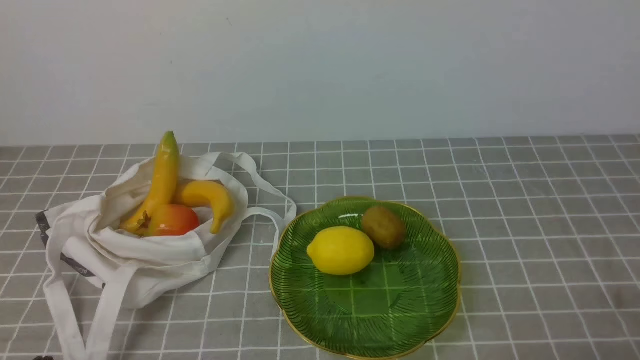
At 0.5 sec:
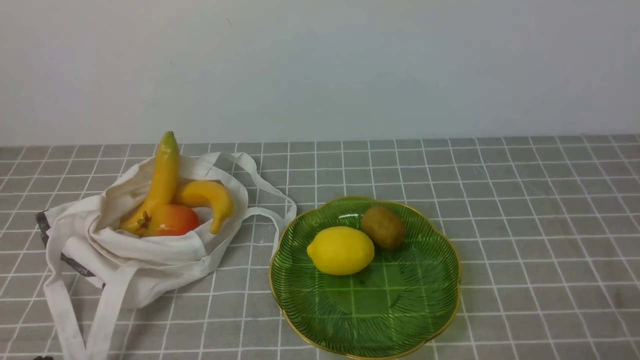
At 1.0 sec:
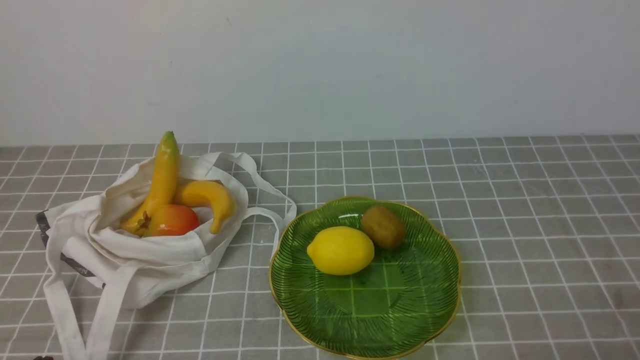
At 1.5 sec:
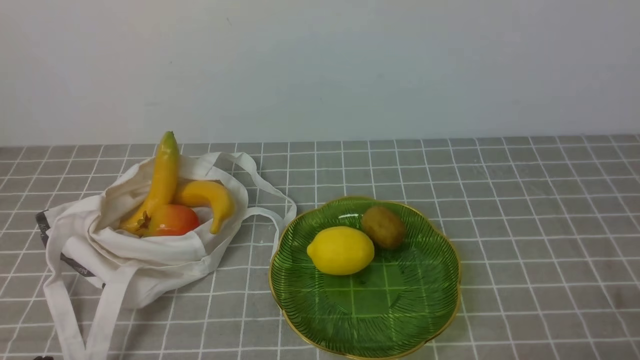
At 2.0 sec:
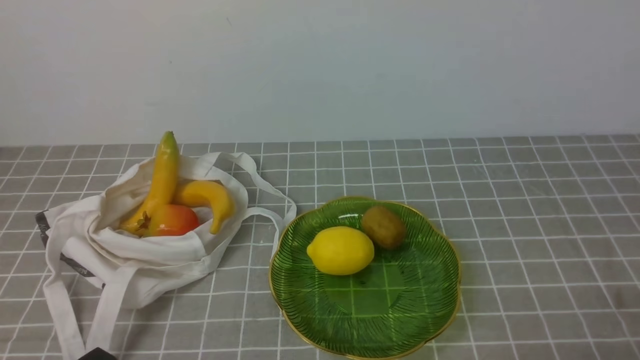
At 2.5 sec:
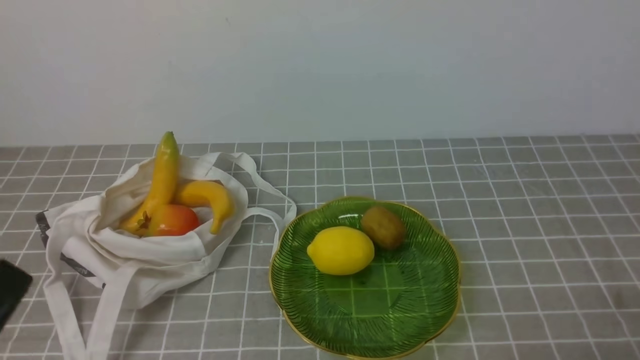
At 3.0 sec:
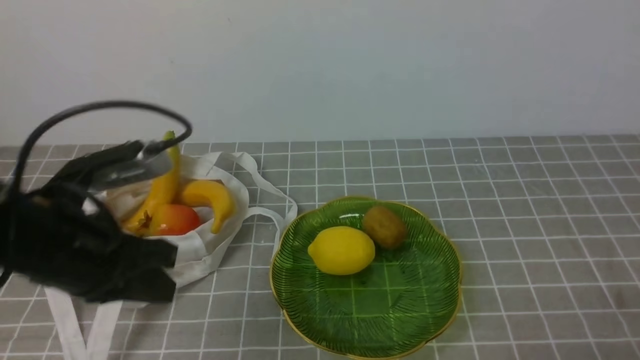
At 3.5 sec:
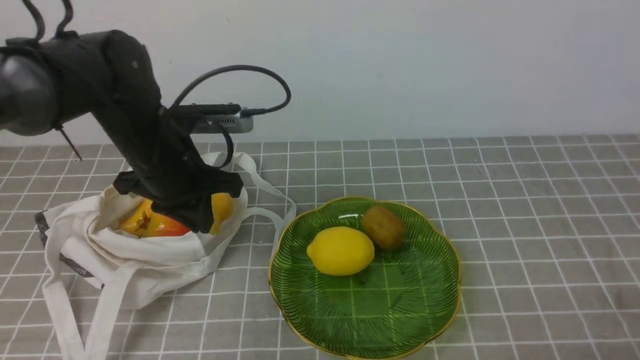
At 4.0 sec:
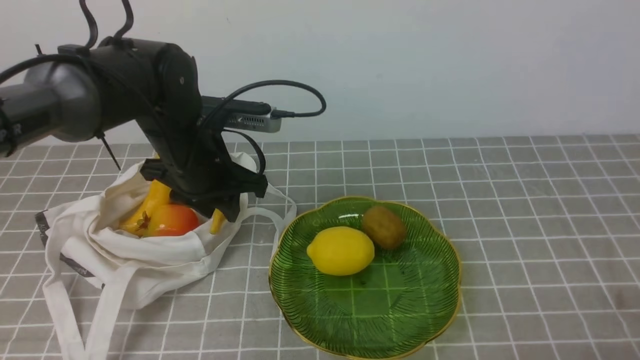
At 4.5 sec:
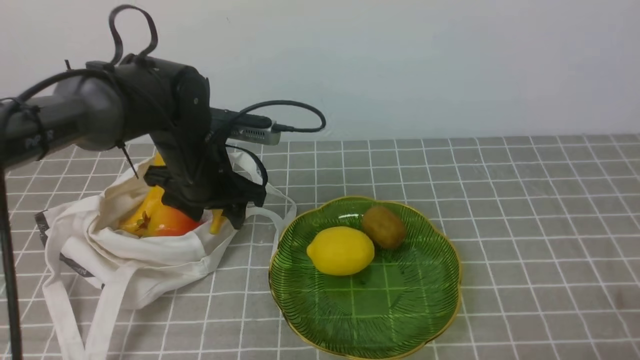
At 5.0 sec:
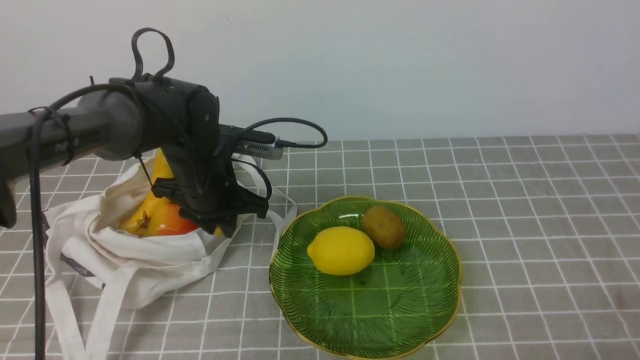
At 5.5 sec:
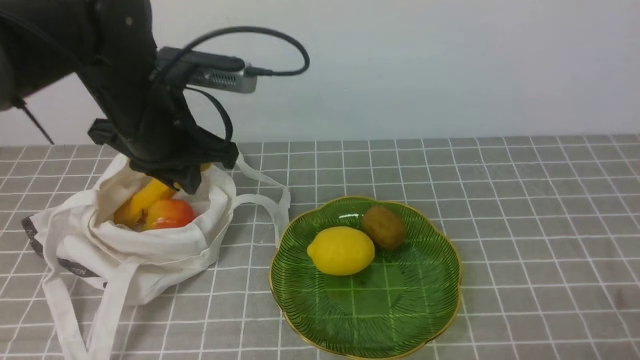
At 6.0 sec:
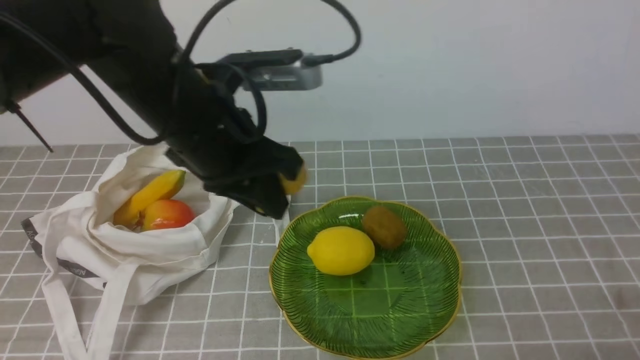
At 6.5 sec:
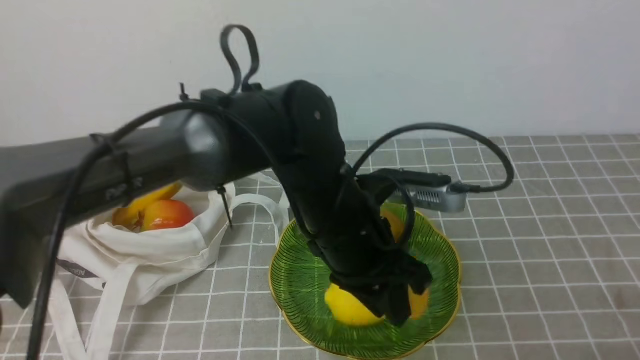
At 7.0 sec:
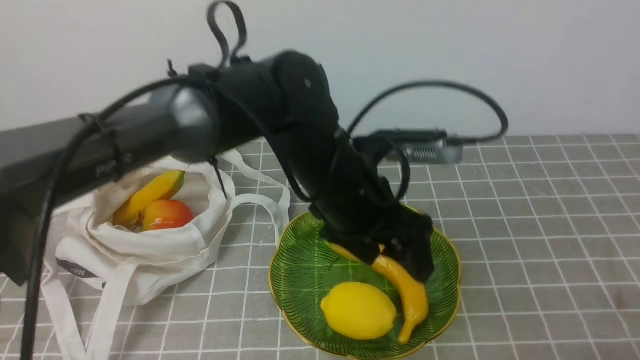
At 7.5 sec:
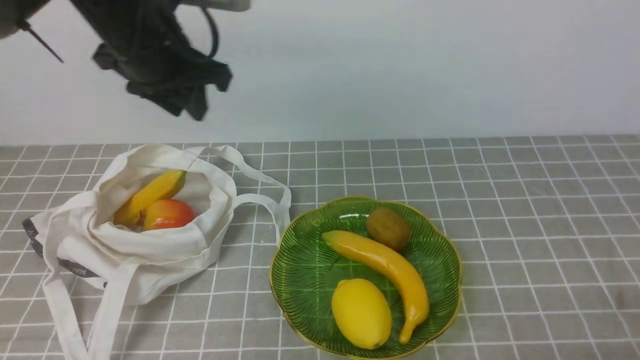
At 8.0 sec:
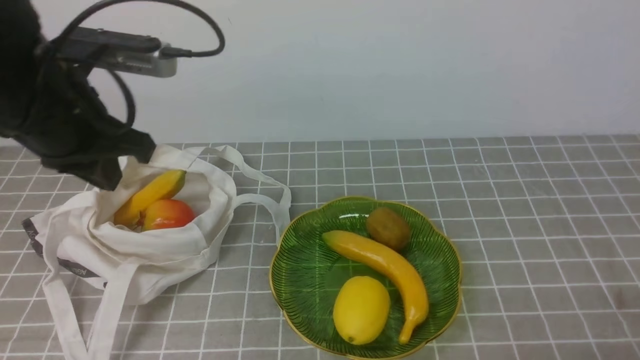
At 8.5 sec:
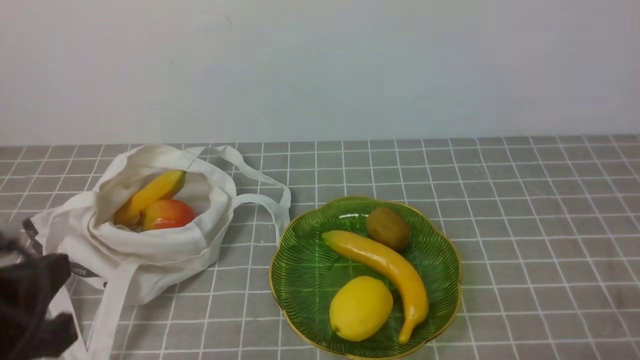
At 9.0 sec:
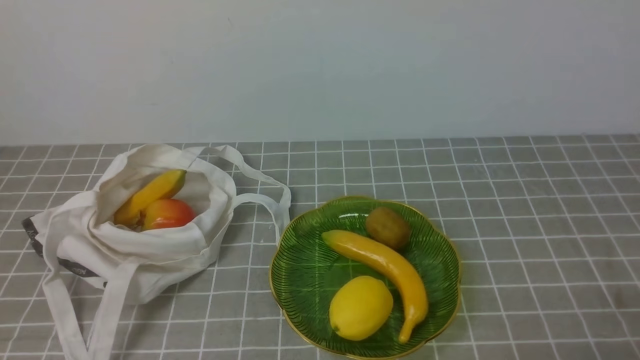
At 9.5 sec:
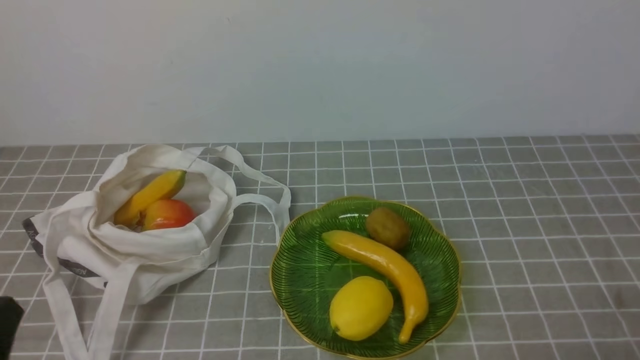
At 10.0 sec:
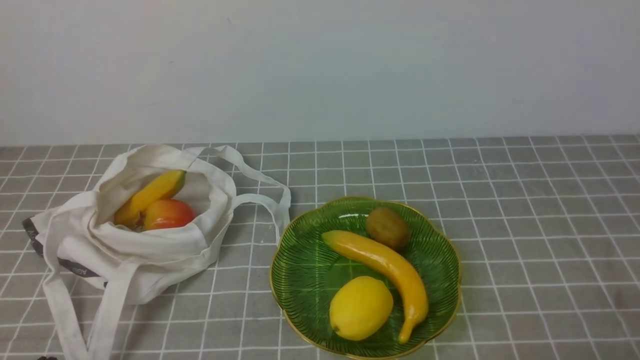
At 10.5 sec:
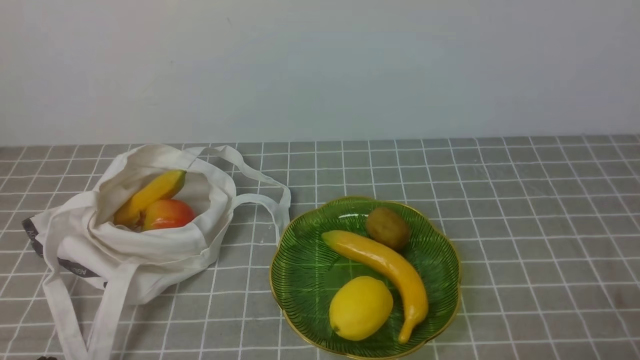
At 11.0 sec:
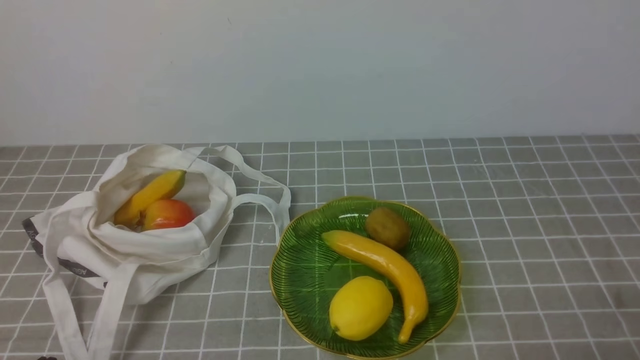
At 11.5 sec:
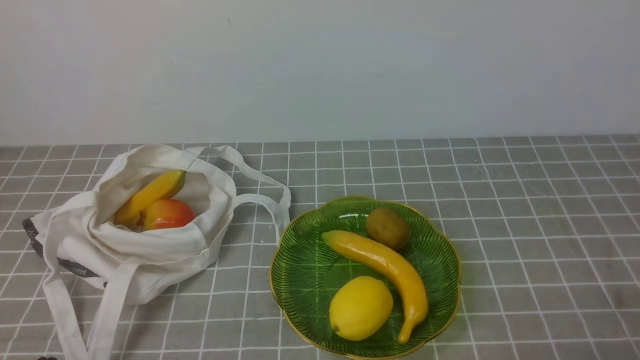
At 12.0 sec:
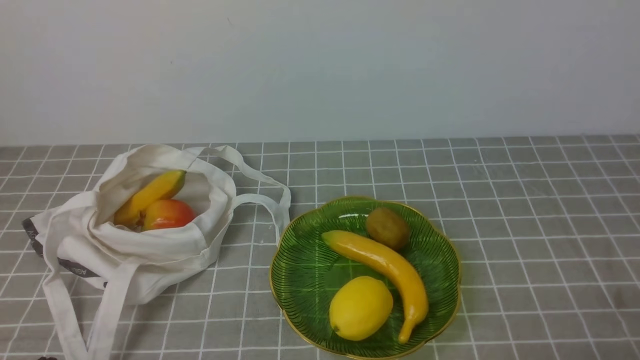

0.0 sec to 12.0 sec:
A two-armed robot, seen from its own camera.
Step, 0.0 sec to 5.0 sec: use the left arm to grab a banana from the bag.
Step, 5.5 sec to 6.5 sec: use the left arm to put the banana into the empty plate on the right.
2.0 sec to 4.0 sec: The left gripper shifts some 30 cm forward, and opens its fingers.
4.0 sec to 6.0 sec: The left gripper travels upward and backward by roughly 10 cm, and opens, then closes once more.
6.0 sec to 8.0 sec: The left gripper moves to the left, roughly 10 cm, and opens, then closes again.
8.0 sec to 10.0 sec: The left gripper shifts roughly 30 cm backward and downward.
10.0 sec to 12.0 sec: Both grippers stay put.
